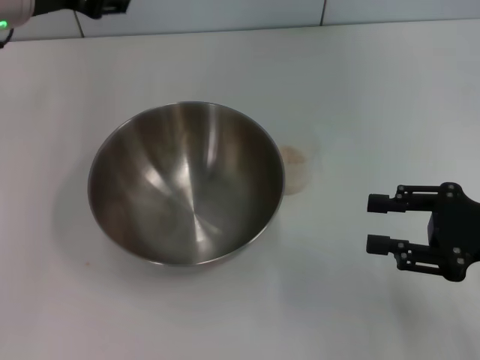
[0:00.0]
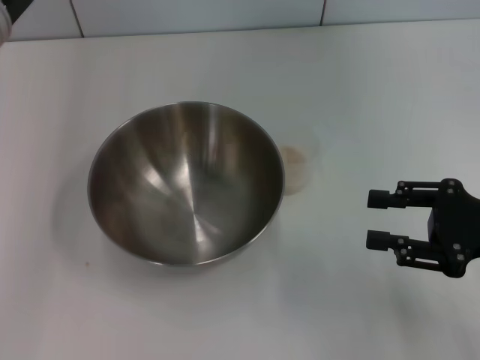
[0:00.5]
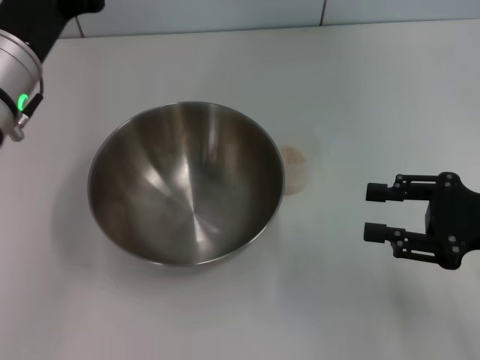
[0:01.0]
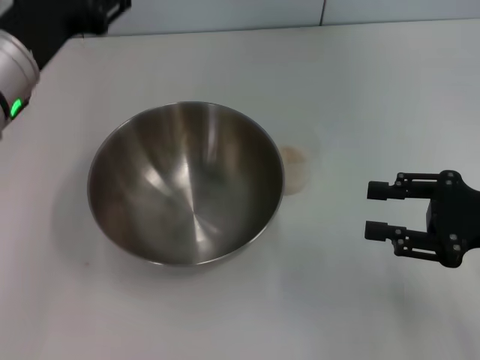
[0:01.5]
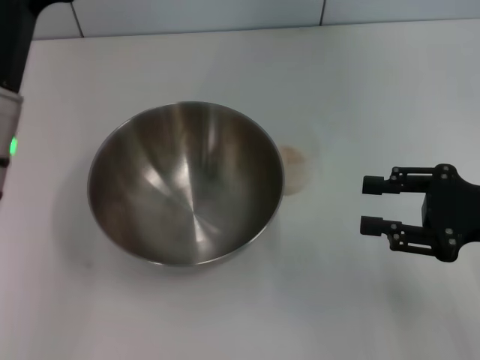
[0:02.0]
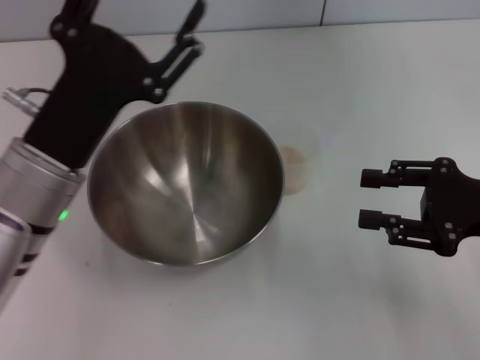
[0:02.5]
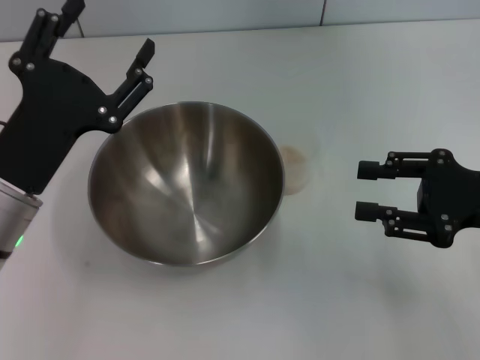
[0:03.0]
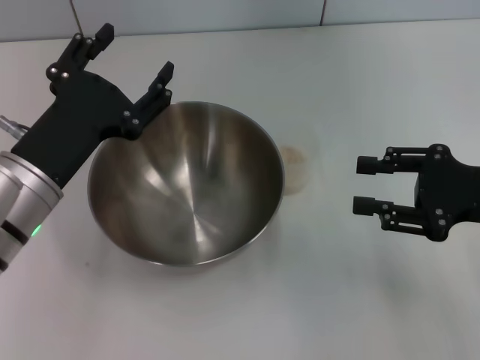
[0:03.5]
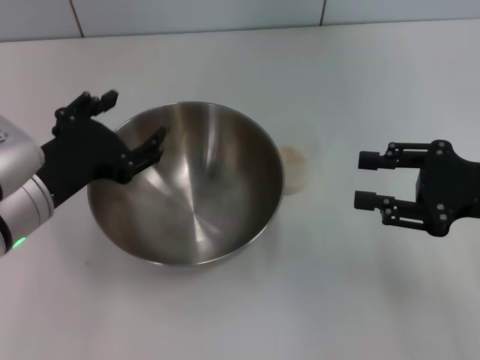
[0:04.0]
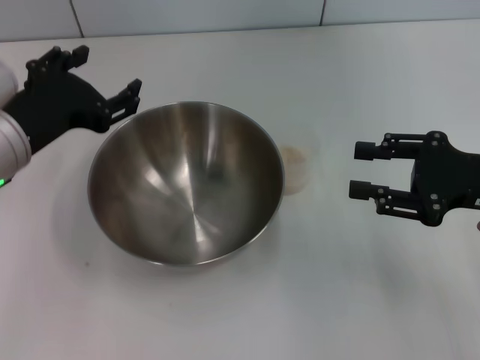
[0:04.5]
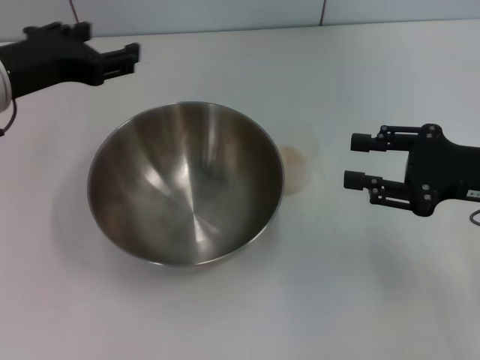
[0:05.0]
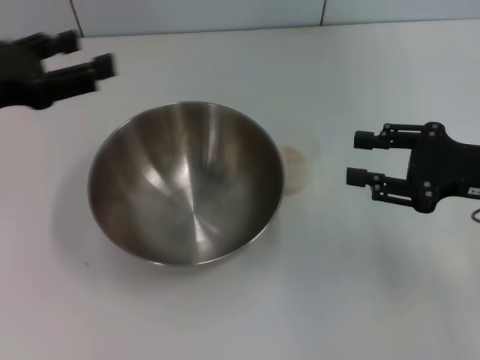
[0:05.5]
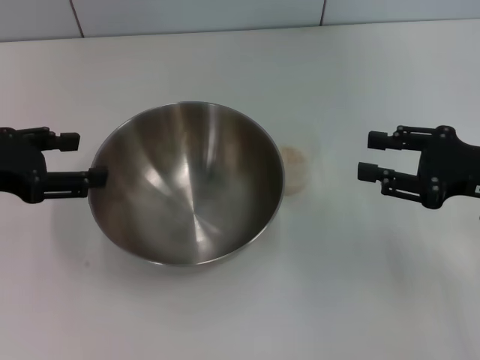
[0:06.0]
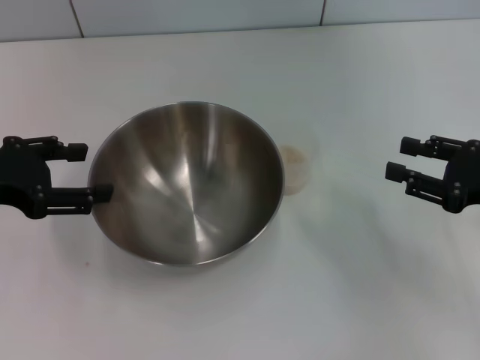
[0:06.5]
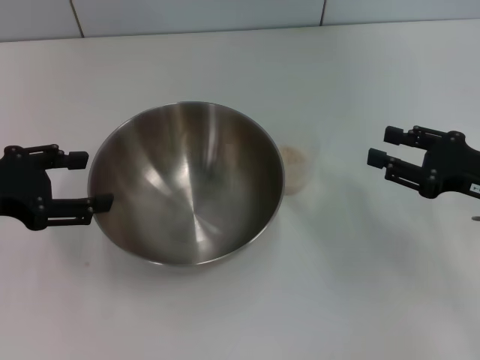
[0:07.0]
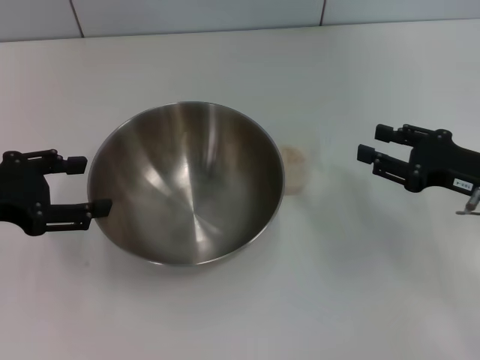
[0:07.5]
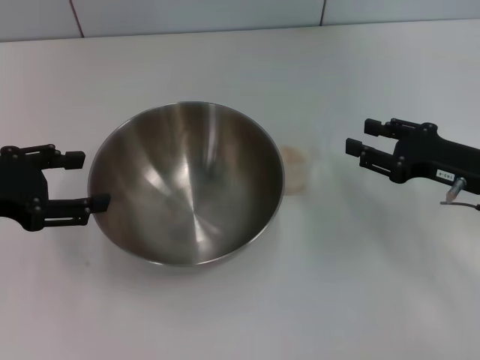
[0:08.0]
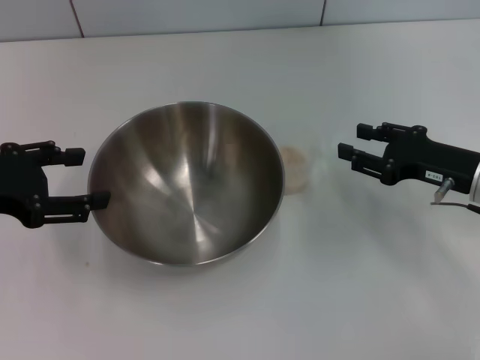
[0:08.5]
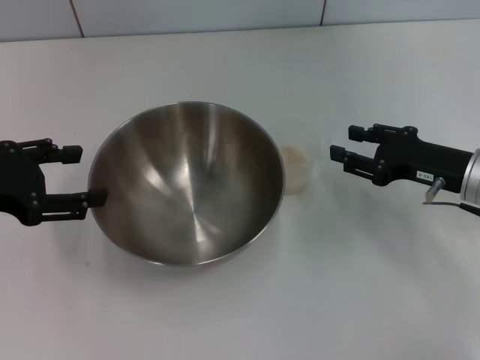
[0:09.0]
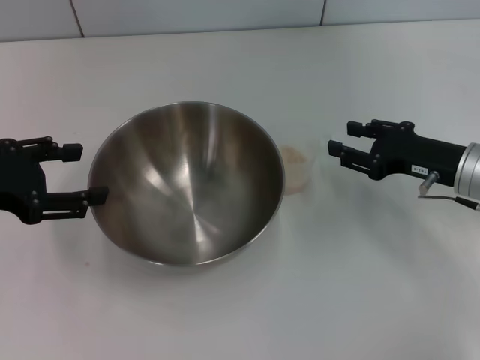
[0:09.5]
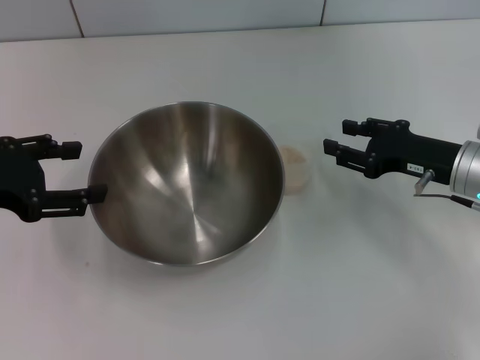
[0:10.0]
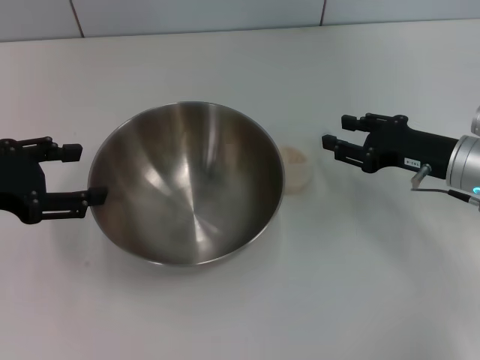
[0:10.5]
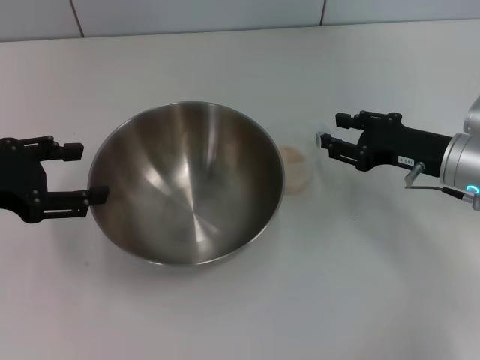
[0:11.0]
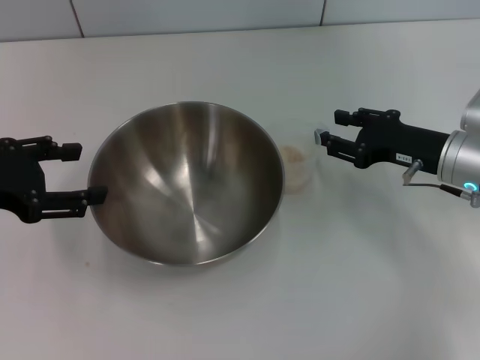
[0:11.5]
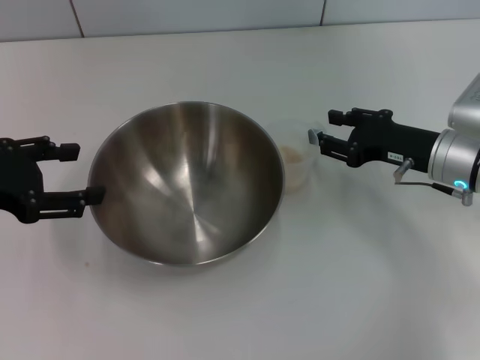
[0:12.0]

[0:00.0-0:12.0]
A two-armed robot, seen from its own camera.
Task of the whole recording: Place the bowl in the middle of the table with one hand and pour the rice from the grain cup into it with the other hand.
0.0 to 2.0 s: The left gripper shifts approximately 15 cm backward and downward.
4.0 to 6.0 s: The left gripper heads to the left, covering roughly 10 cm.
6.0 to 8.0 s: The right gripper ends up some 5 cm from where it was.
8.0 to 12.0 s: The grippers stay close to where they were, moving slightly.

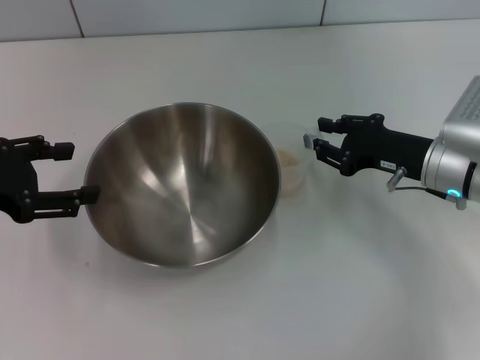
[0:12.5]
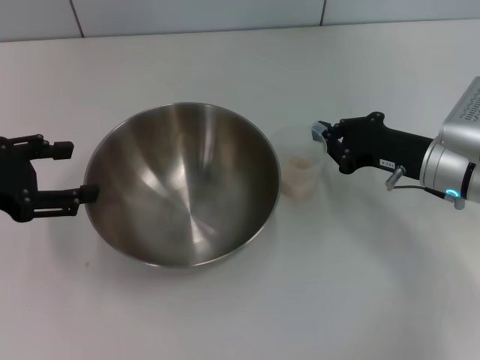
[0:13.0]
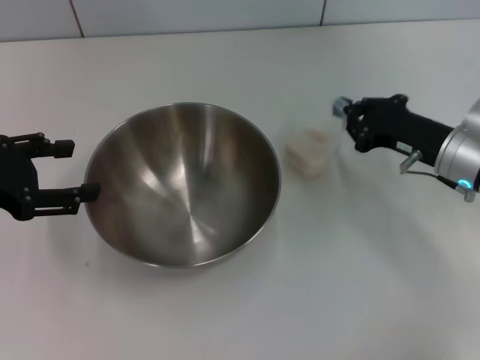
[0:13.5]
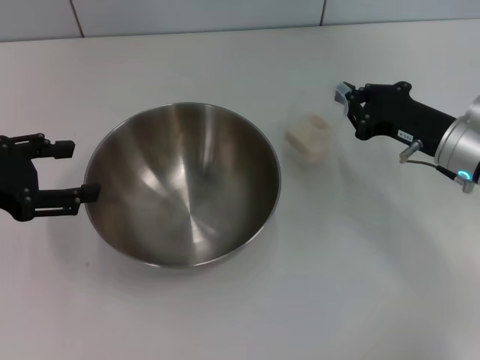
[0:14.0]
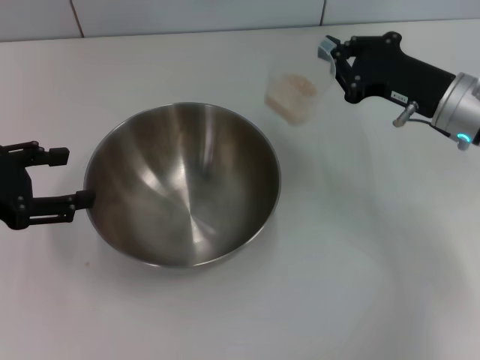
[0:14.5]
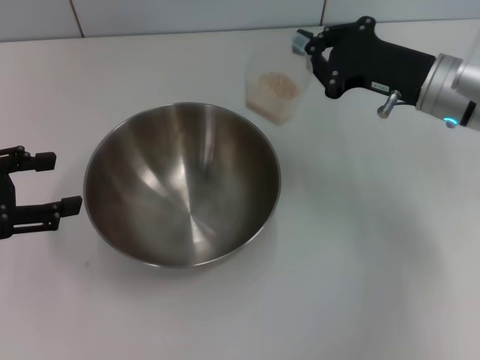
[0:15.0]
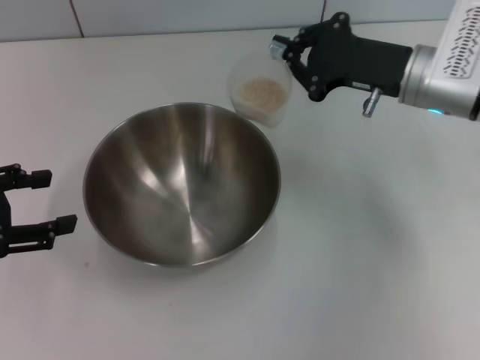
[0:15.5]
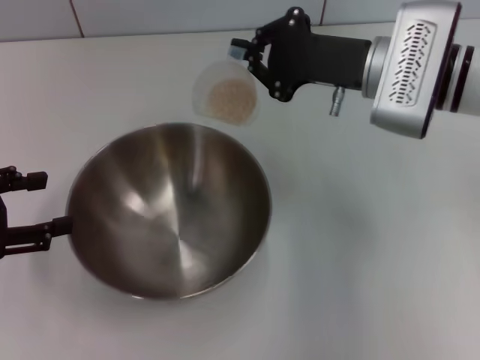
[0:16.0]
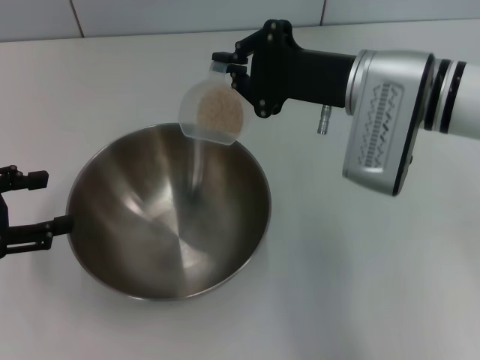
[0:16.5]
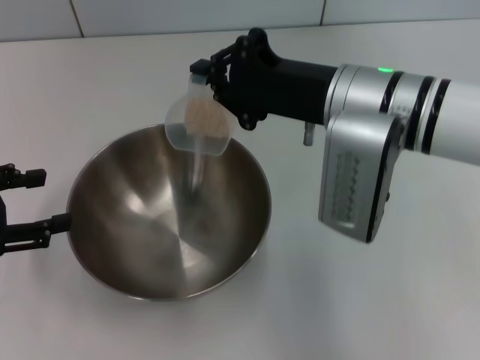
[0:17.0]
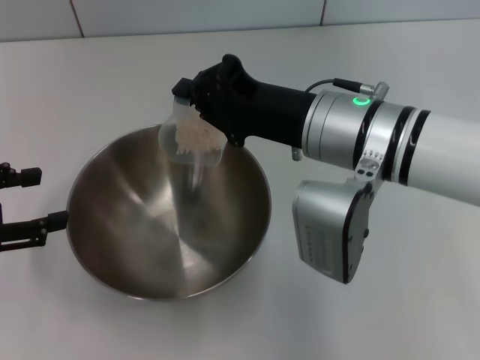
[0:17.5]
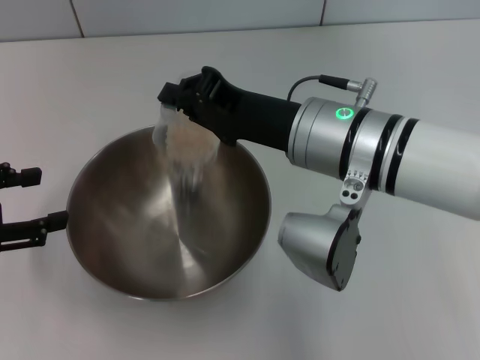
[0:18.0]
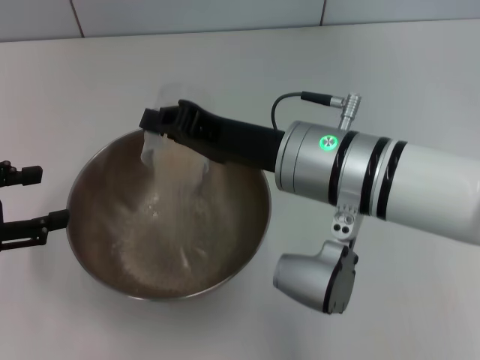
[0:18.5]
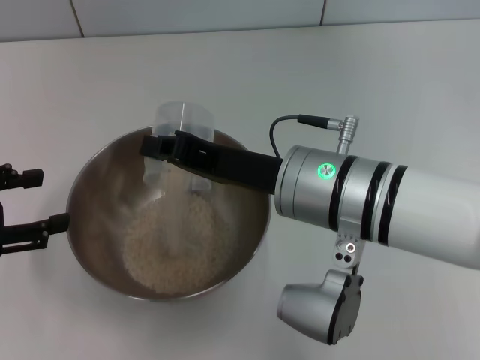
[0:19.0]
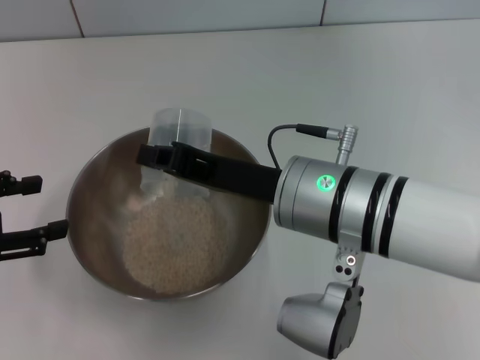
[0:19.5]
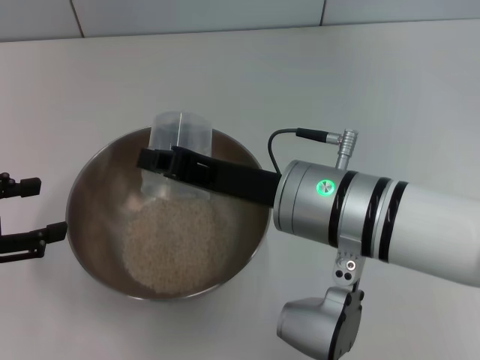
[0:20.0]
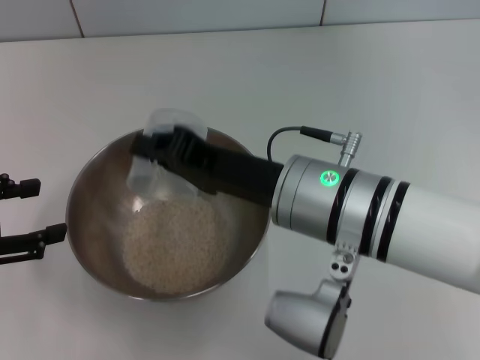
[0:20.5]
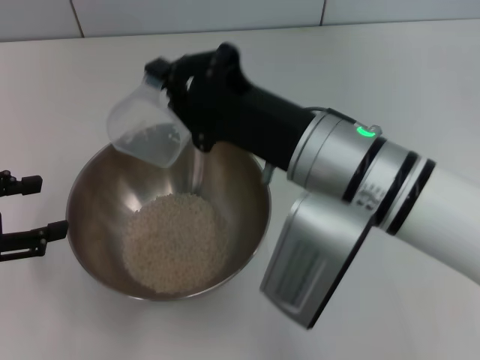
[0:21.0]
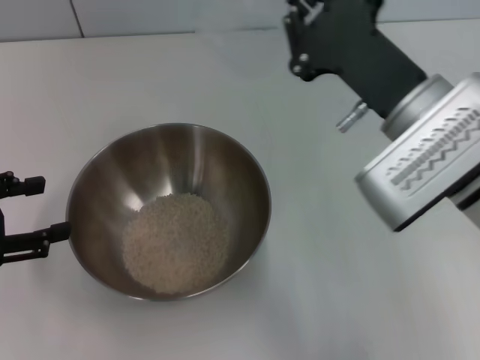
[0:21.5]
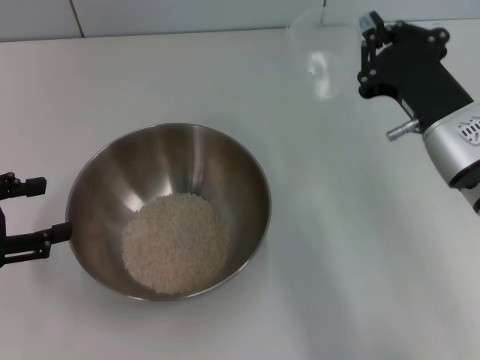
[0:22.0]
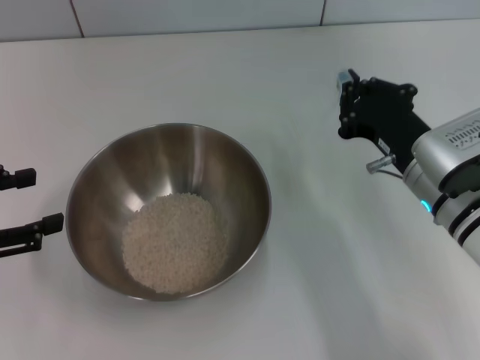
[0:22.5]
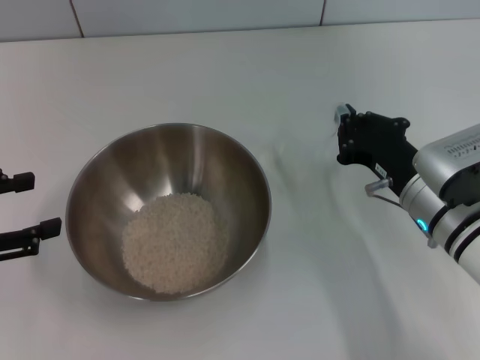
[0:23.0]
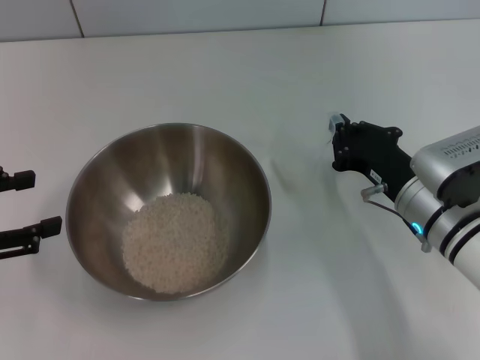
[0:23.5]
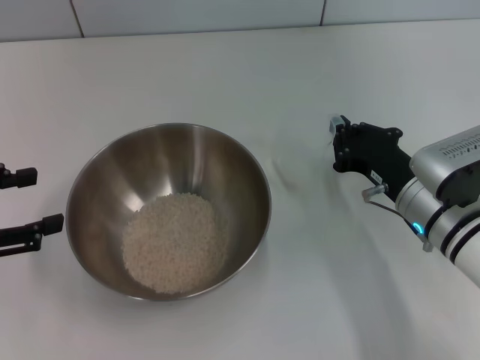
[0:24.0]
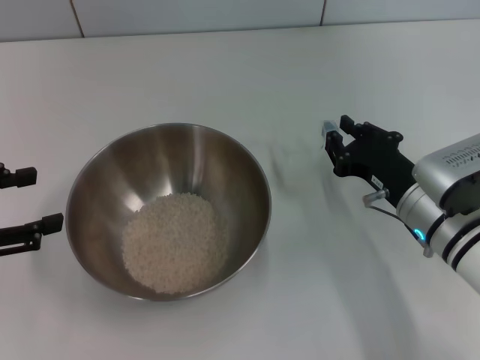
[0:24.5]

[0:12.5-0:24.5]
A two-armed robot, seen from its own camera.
Task of the whole recording: Place the bowl in the middle of the table with one hand and pour the rice from the grain cup into it with the other hand.
Step, 14.5 to 22.0 s: Pour the rice from the cup into the bowl with the right gripper.
12.5 to 14.5 s: The right gripper moves upward, about 5 cm, and closes its fingers.
14.5 to 16.5 s: The right gripper is displaced to the left and upward by approximately 10 cm.
16.5 to 18.5 s: The right gripper shifts approximately 10 cm backward and to the left.
20.5 to 22.5 s: The right gripper heads to the right and downward, covering roughly 15 cm.
22.5 to 24.5 s: The grippers make only small movements.

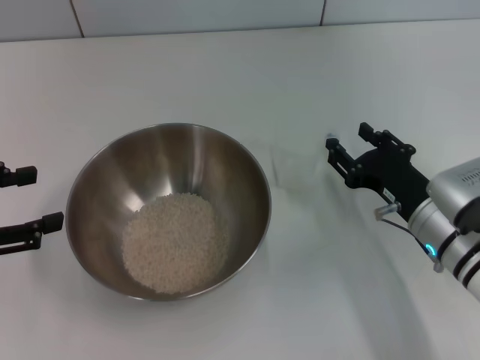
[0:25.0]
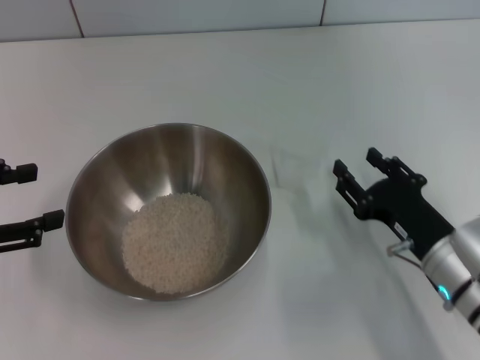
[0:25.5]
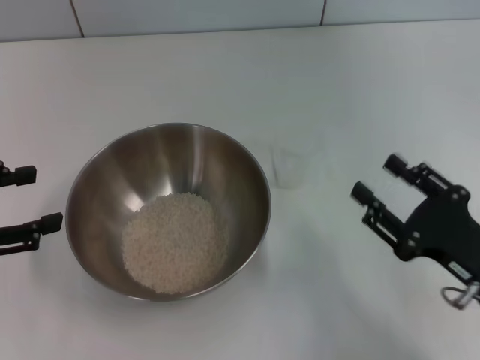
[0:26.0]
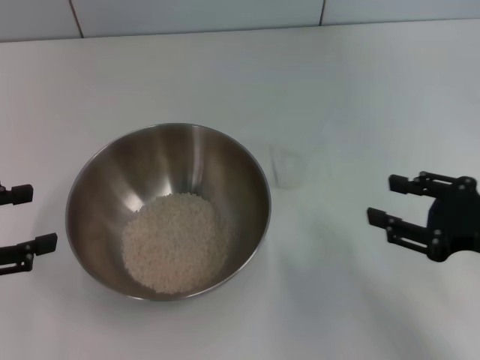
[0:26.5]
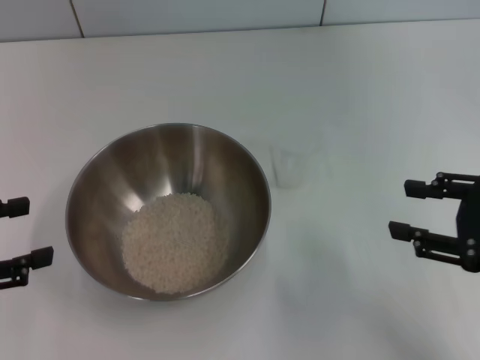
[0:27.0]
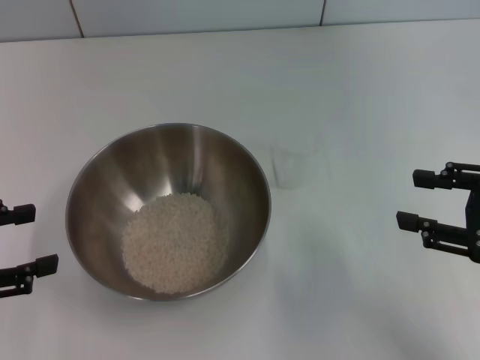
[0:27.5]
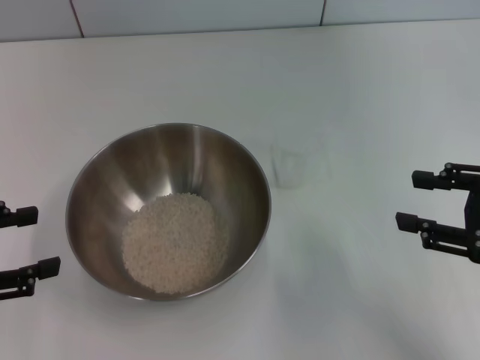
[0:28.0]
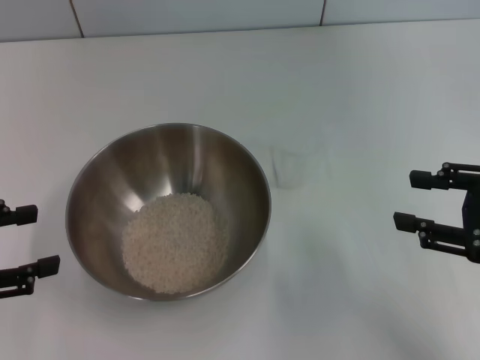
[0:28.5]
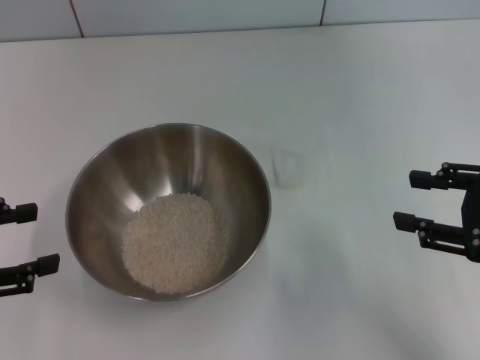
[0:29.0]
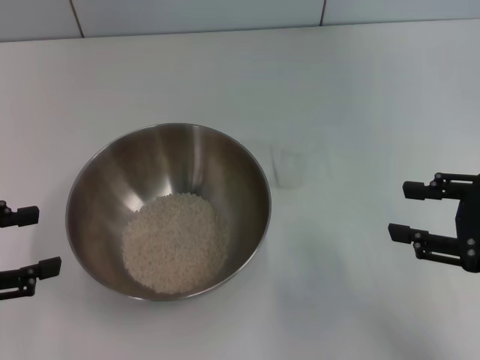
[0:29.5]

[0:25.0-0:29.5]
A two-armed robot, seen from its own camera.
Task of the whole recording: Place the bowl in the middle of the table with one hand and pour the rice from the grain cup into it with the other hand.
25.0 to 27.0 s: The right gripper shifts approximately 15 cm upward, to the right and backward.
27.0 to 29.5 s: Both grippers stay about where they are.
